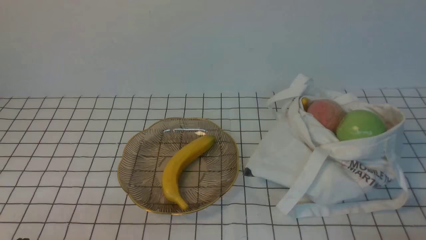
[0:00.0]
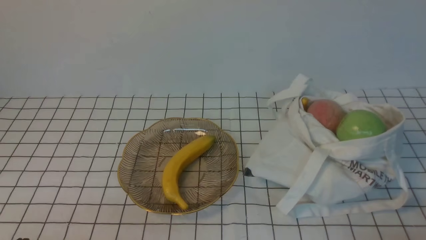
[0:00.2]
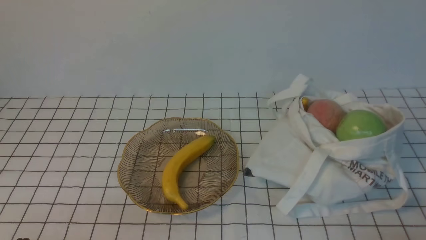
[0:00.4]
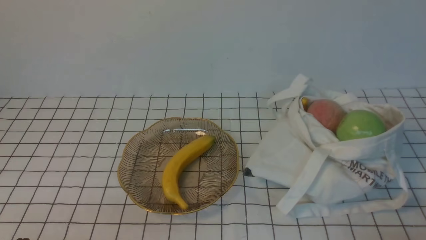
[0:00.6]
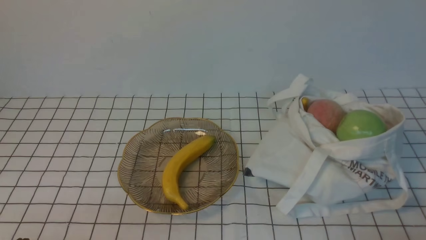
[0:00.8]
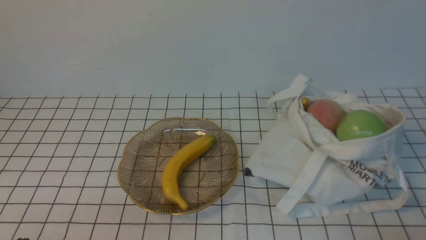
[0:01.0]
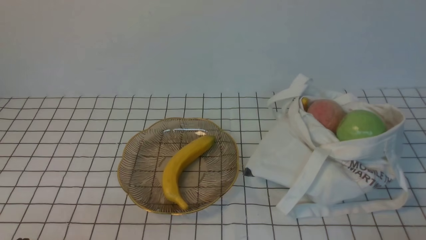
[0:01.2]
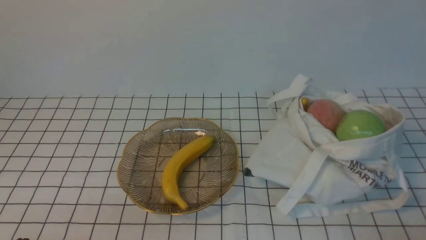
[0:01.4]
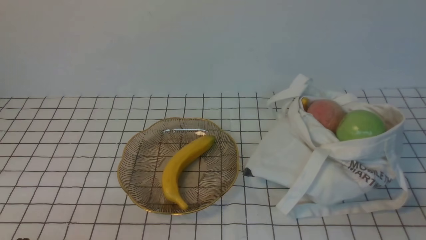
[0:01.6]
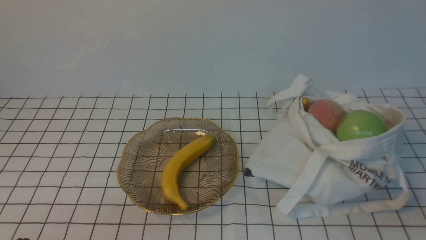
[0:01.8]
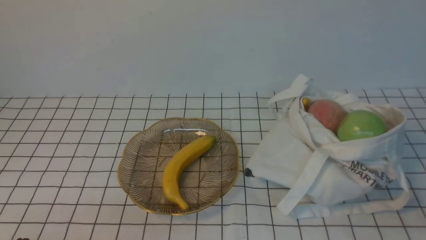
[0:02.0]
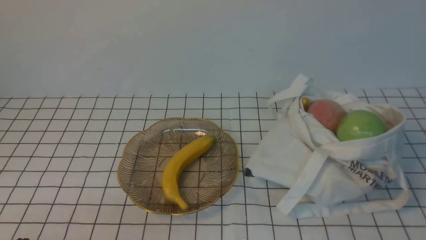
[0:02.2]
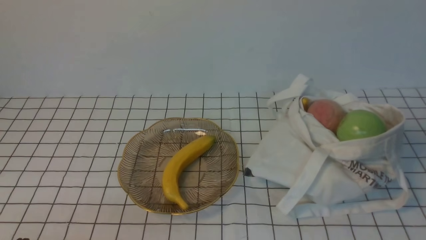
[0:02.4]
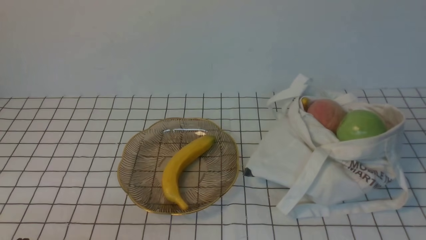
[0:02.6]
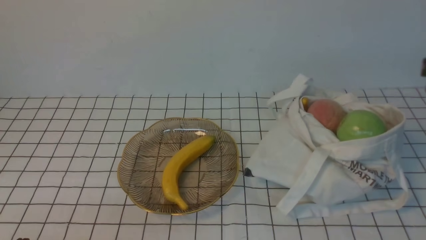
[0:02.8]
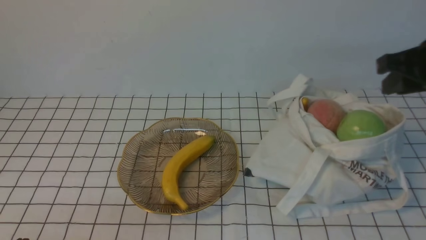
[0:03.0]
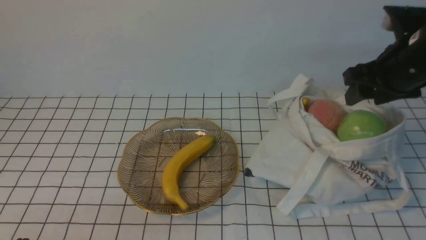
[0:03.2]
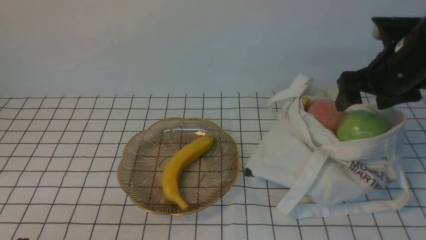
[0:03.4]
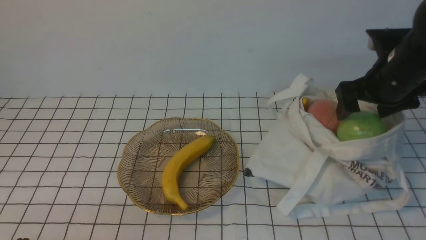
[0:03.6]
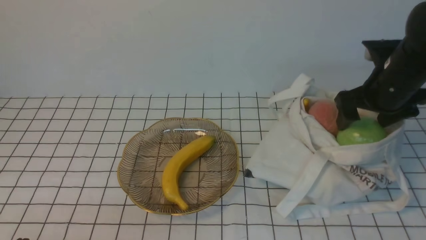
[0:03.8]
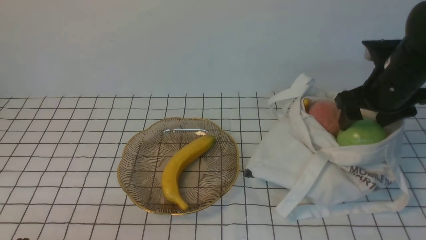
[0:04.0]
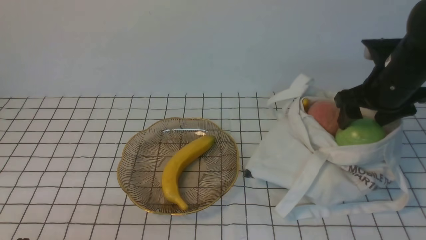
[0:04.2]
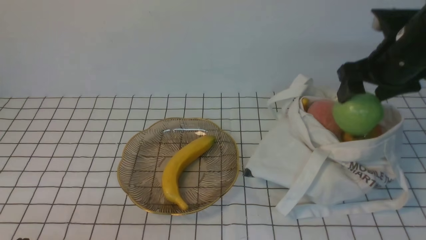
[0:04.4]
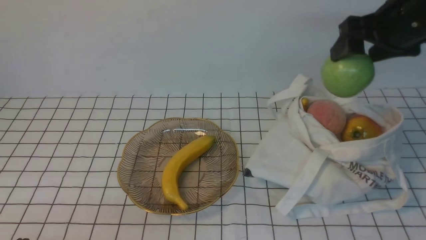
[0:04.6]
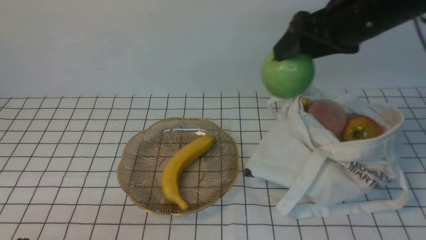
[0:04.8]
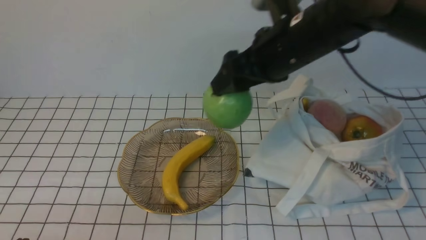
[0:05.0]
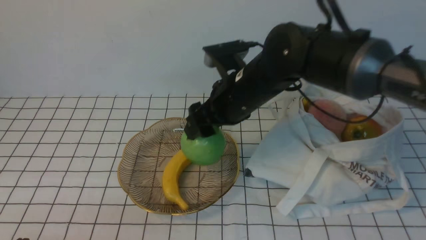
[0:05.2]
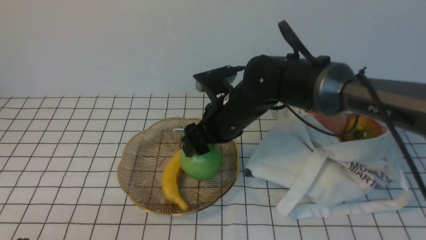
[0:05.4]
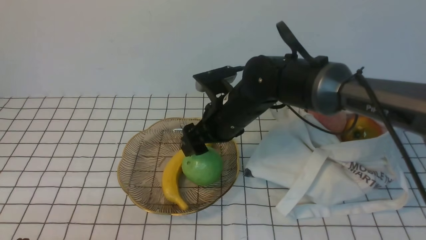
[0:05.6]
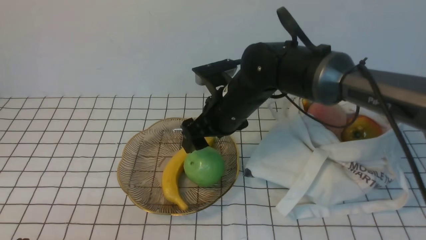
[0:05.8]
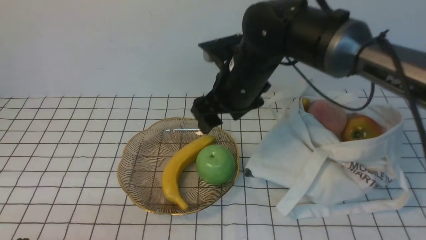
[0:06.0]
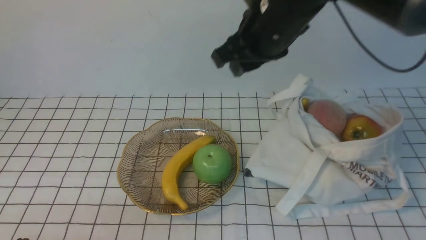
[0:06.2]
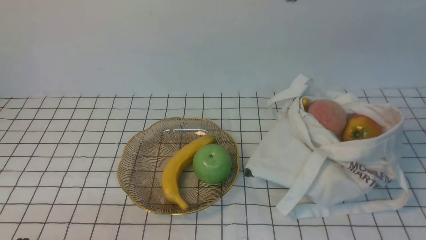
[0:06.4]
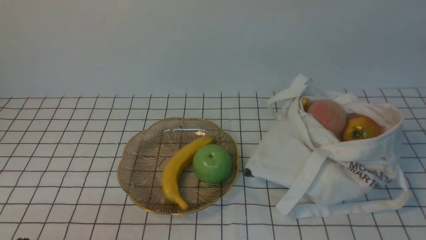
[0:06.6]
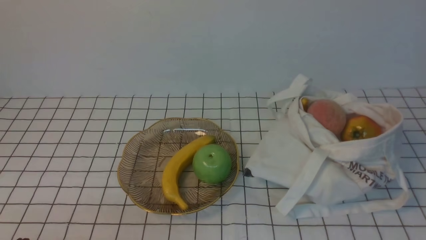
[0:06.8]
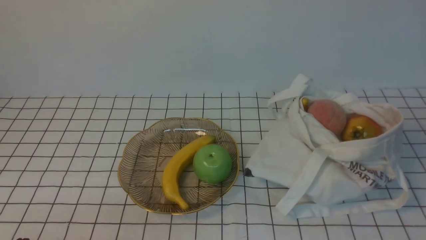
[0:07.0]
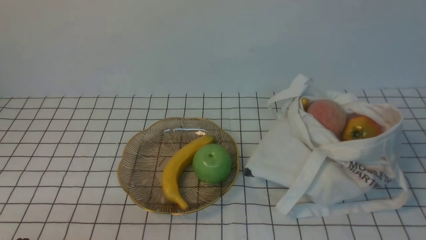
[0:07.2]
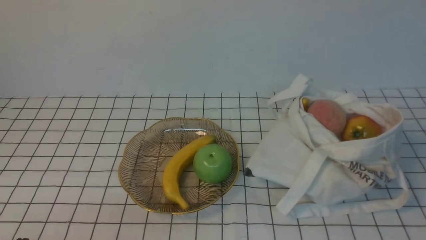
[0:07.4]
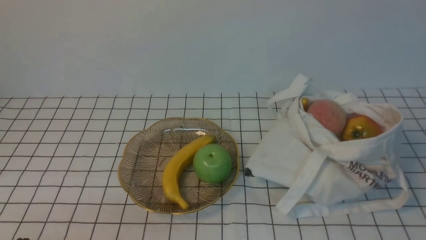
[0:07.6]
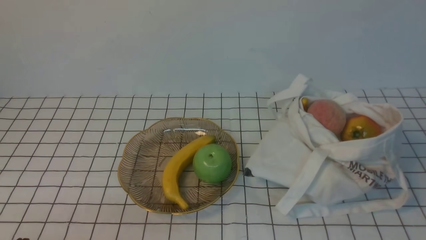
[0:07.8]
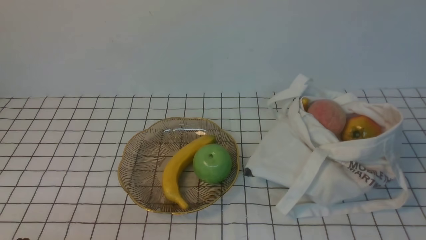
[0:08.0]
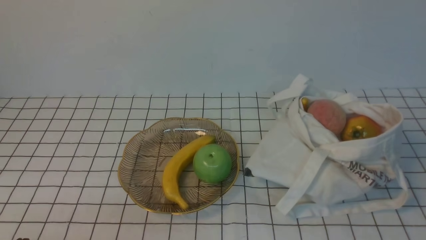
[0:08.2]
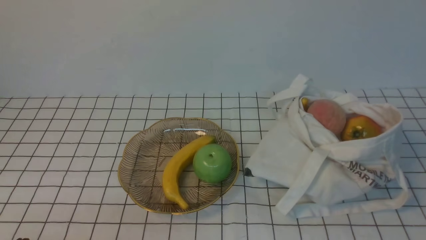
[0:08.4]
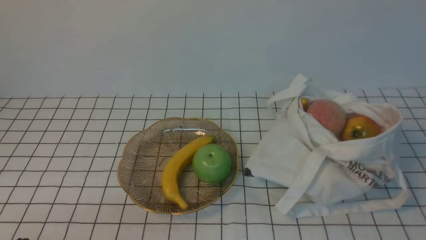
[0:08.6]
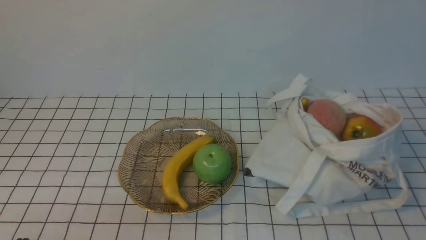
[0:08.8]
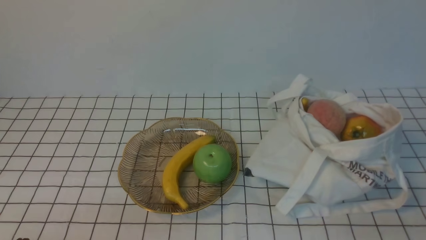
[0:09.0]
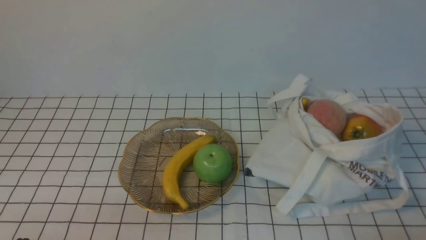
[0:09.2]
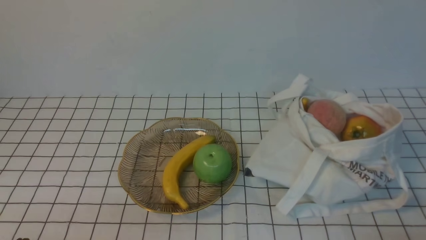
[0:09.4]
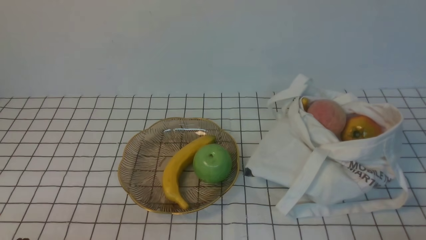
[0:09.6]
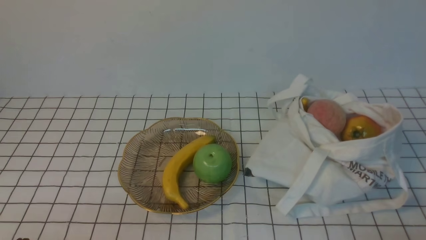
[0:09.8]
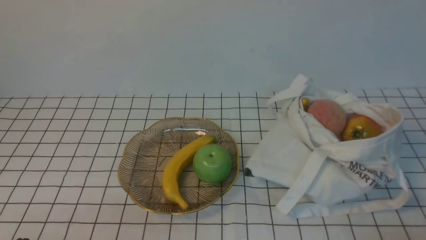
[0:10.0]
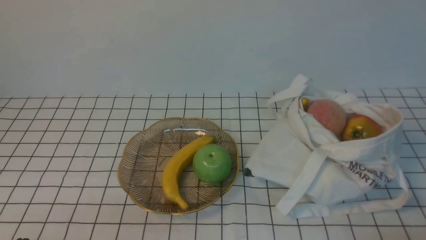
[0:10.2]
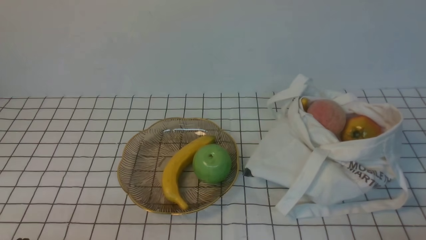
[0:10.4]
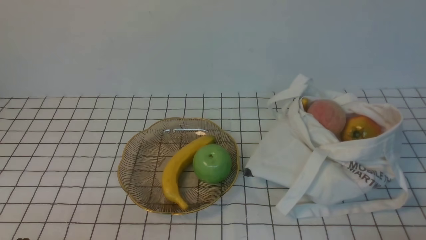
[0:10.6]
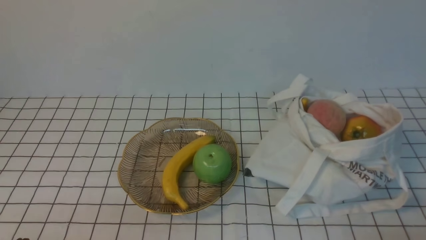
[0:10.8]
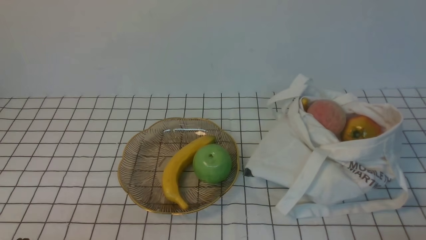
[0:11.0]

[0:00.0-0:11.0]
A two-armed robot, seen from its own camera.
Step, 0:00.0 to 0:04.4: use the right arm to grab an apple from the bag.
Step, 0:04.6 to 0:05.8: use the right arm to put the apple into the empty plate on the left.
0:01.6 to 0:03.2: The right gripper travels forward and upward by approximately 30 cm, and opens its fingers.
0:03.2 to 0:04.8: The right gripper moves to the left, roughly 10 cm.
0:04.8 to 0:06.2: The right gripper heads to the left, covering roughly 5 cm, goes downward and returns, some 15 cm each way, and closes its fingers.
0:06.2 to 0:07.8: The right gripper shifts some 40 cm backward and to the right, and closes.
0:09.4 to 0:11.0: Neither gripper changes place.
